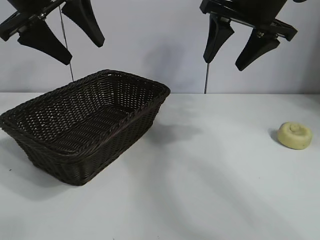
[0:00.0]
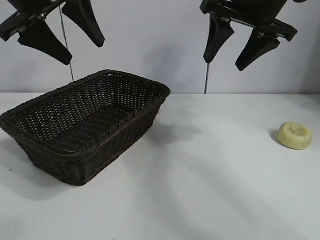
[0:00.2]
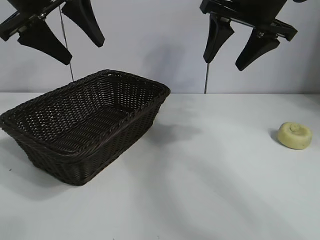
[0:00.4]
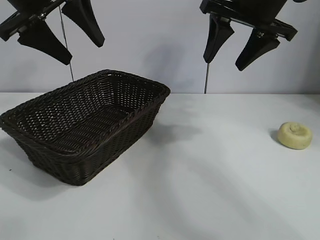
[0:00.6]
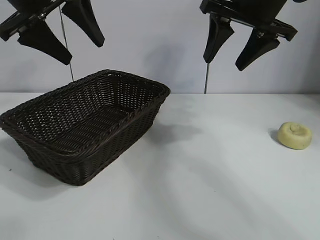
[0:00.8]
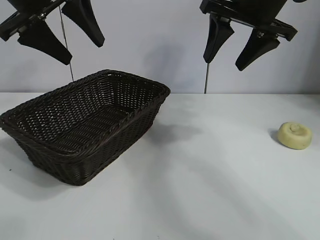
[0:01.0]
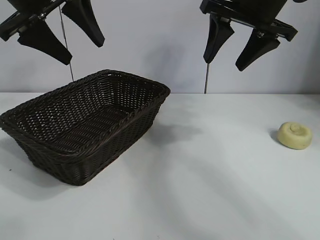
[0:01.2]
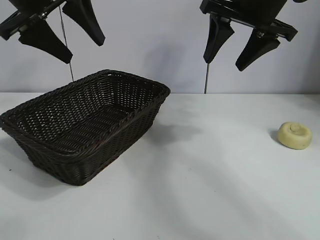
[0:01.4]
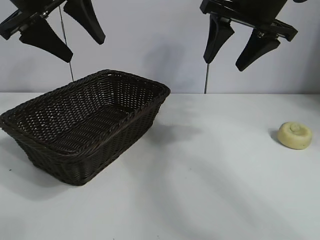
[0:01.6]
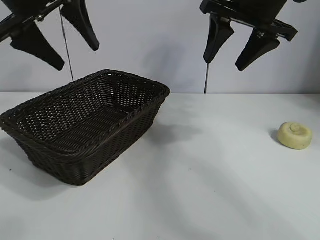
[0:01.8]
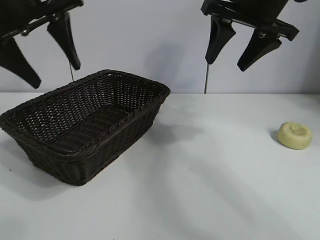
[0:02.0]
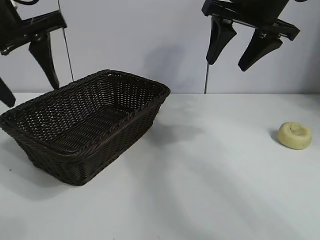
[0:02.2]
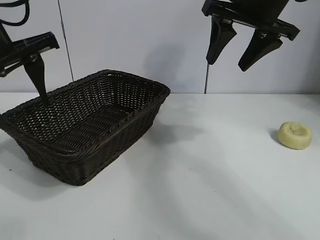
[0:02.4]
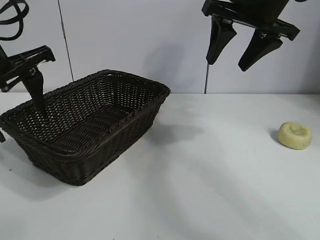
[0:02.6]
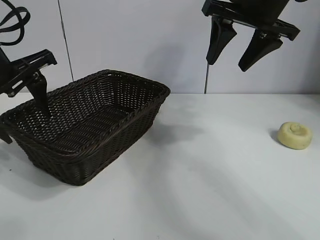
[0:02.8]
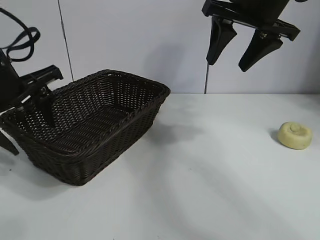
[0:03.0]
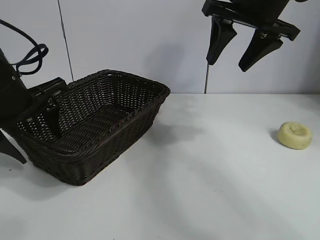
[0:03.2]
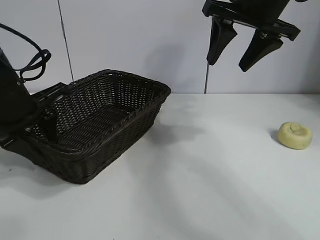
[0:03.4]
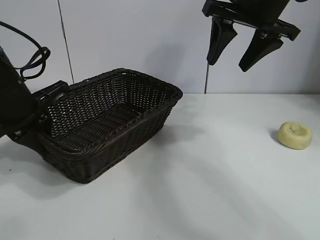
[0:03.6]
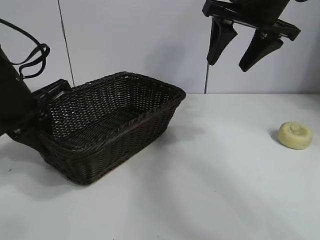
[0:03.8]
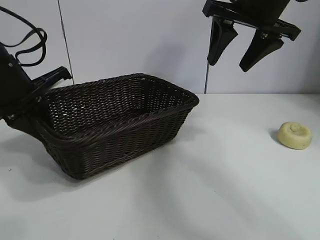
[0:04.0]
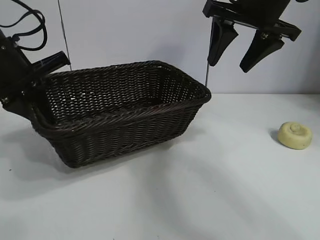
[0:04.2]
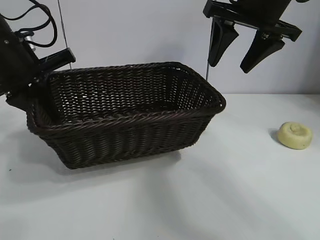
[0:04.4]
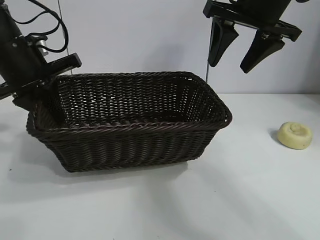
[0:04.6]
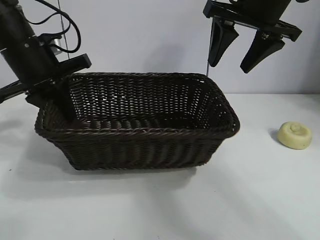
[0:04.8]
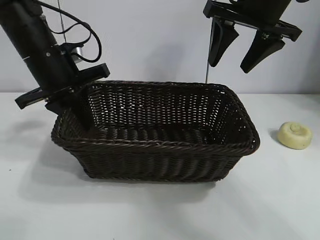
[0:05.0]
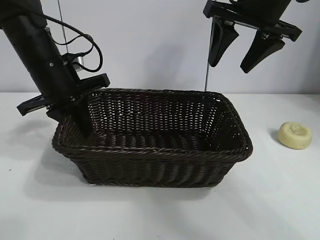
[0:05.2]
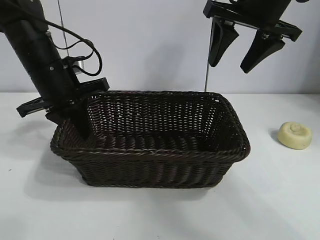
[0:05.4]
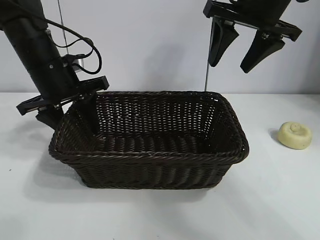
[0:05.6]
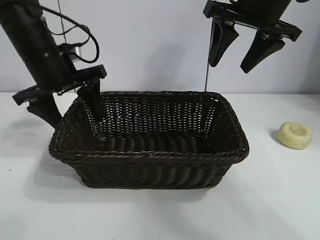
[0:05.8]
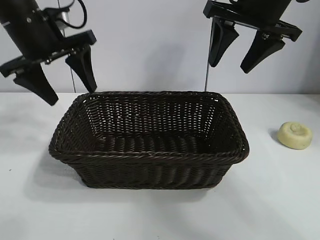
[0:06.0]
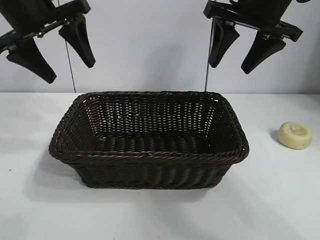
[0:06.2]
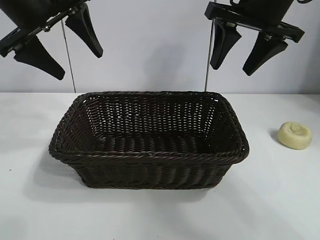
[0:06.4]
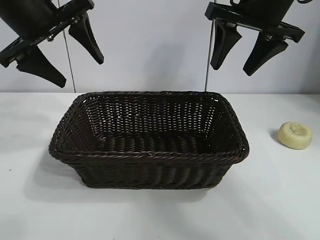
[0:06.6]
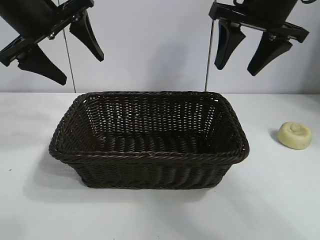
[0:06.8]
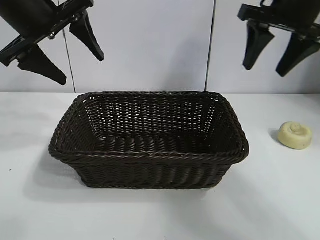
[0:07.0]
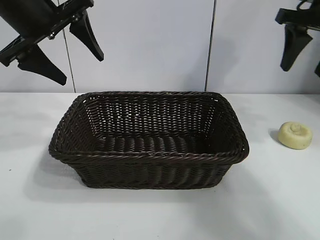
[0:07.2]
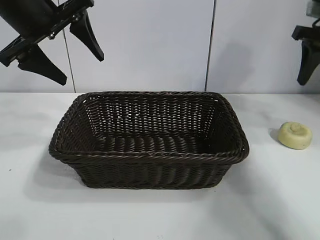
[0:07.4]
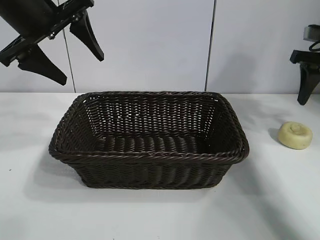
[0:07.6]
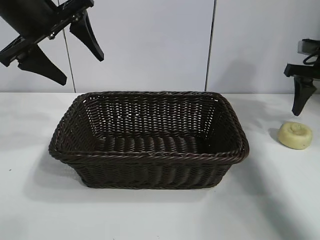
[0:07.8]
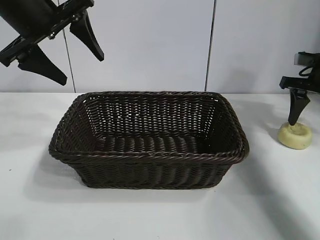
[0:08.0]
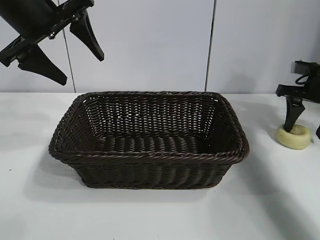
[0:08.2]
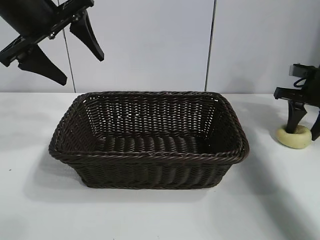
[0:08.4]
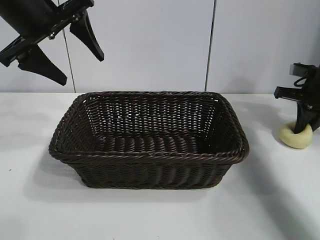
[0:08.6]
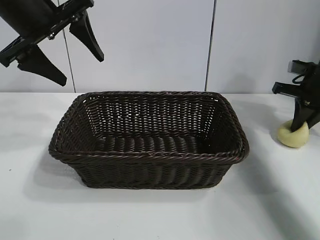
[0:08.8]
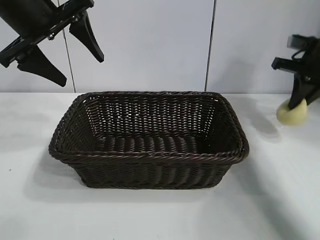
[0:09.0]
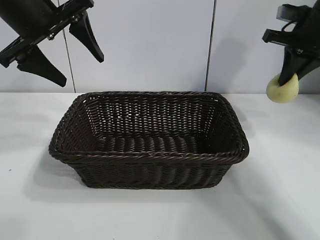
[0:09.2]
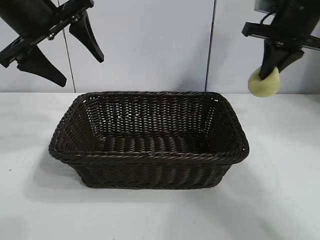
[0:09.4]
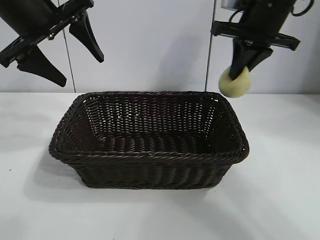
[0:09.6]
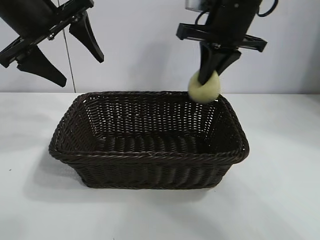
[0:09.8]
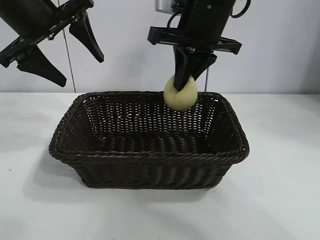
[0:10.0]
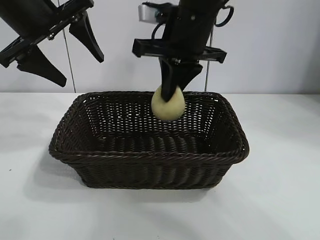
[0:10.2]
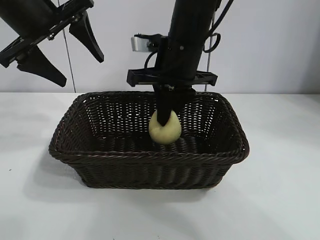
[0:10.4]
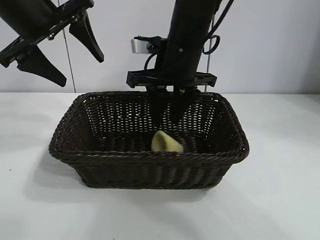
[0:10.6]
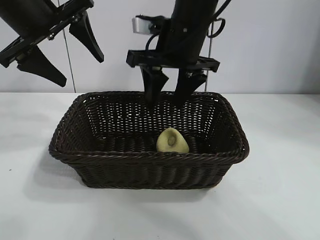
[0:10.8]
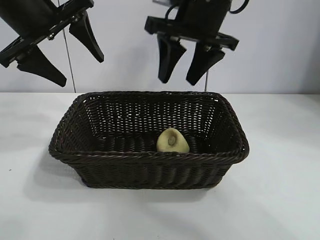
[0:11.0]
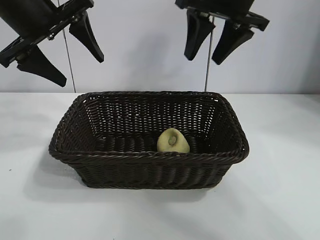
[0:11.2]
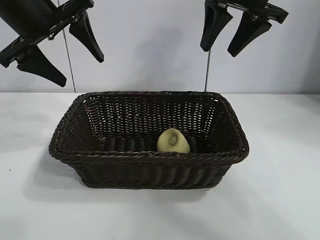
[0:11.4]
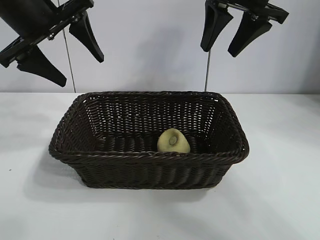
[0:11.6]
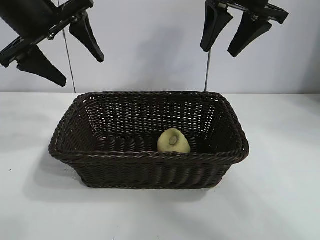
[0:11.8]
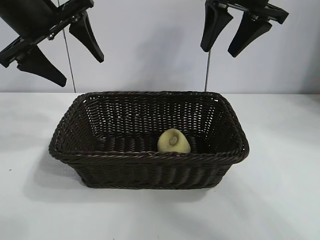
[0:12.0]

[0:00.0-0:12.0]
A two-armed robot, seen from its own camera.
Task of the whole recording: pick up the egg yolk pastry and put it into the basket.
Step, 0:01.4 to 0:03.6: Grasp the basket with left gripper.
Step, 0:03.8 to 0:05.6: Place the basket in the center of view with left gripper.
Step, 0:06.0 to 0:08.6: Grasp egg yolk pastry with right gripper.
Step, 0:08.8 to 0:10.6: Place the egg yolk pastry in the basket with right gripper.
